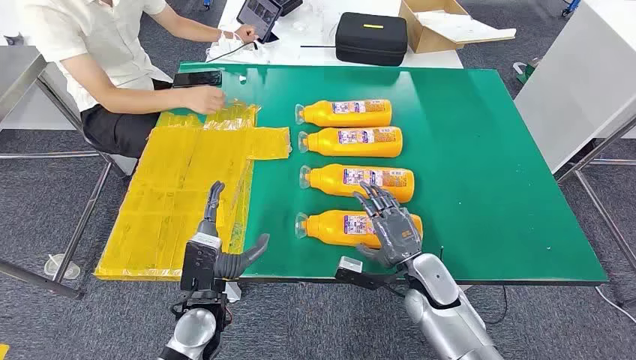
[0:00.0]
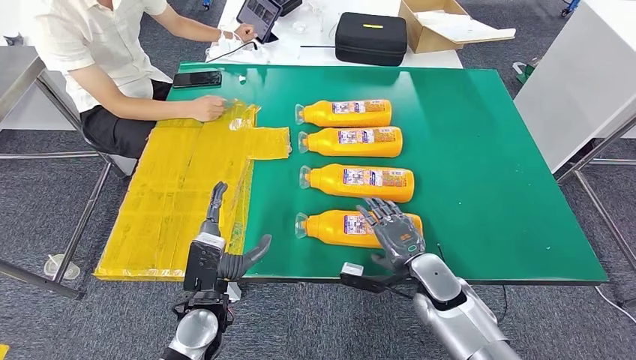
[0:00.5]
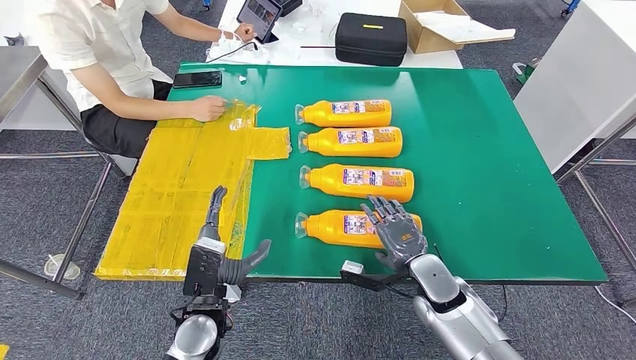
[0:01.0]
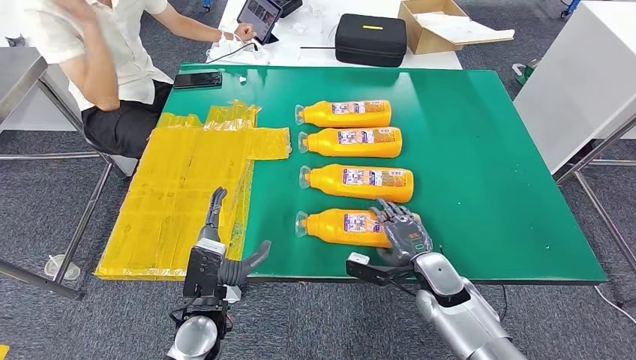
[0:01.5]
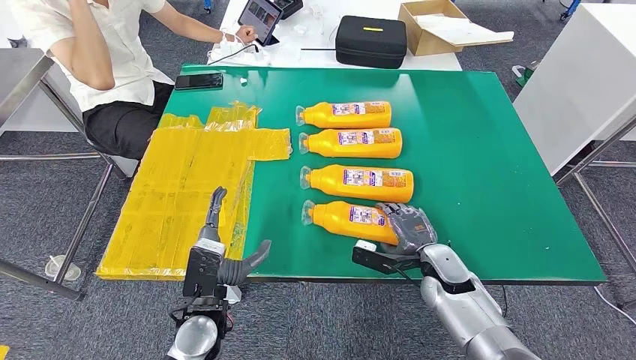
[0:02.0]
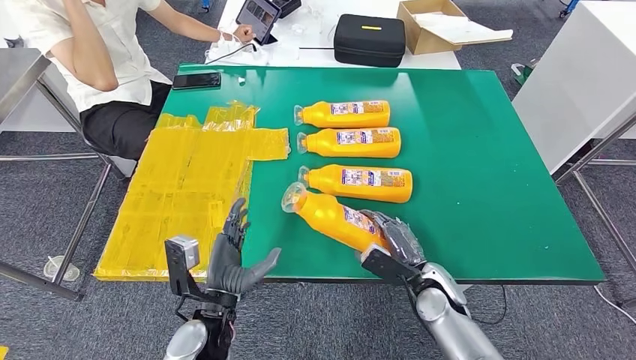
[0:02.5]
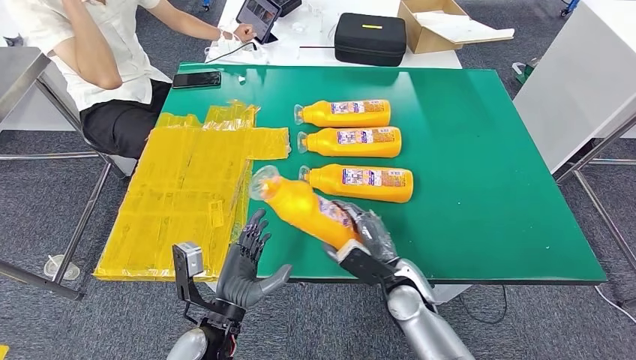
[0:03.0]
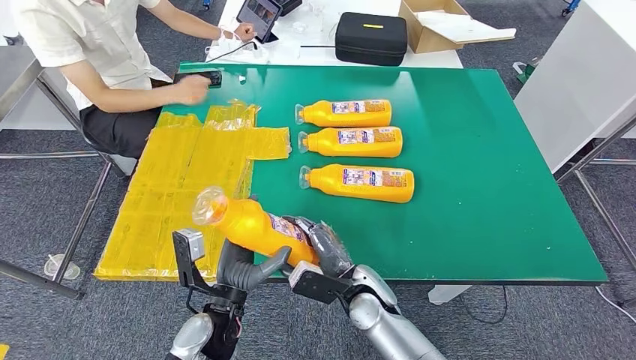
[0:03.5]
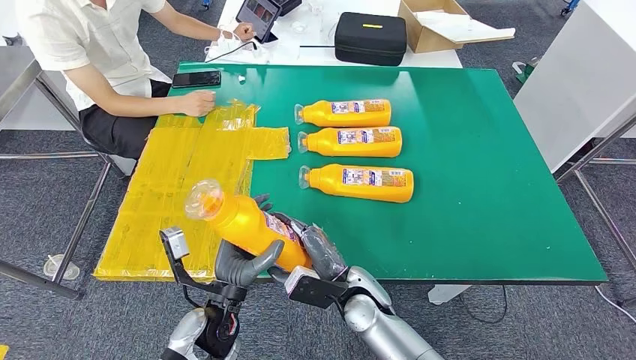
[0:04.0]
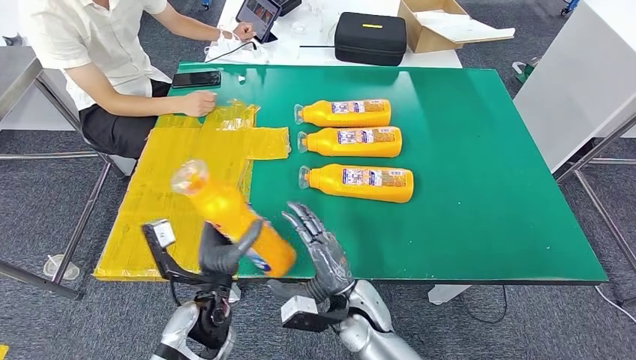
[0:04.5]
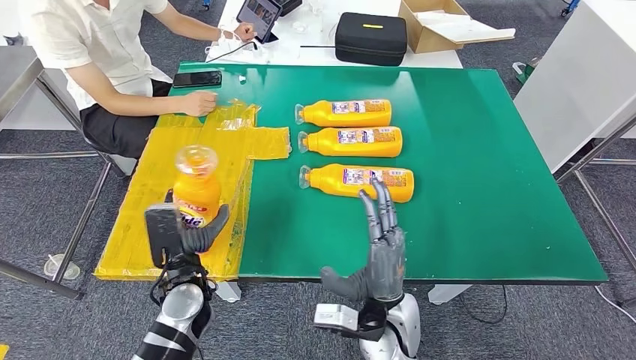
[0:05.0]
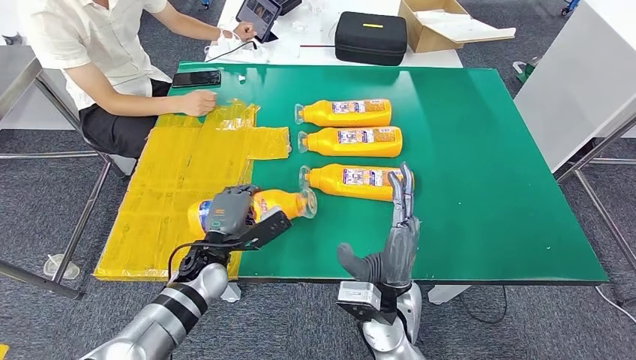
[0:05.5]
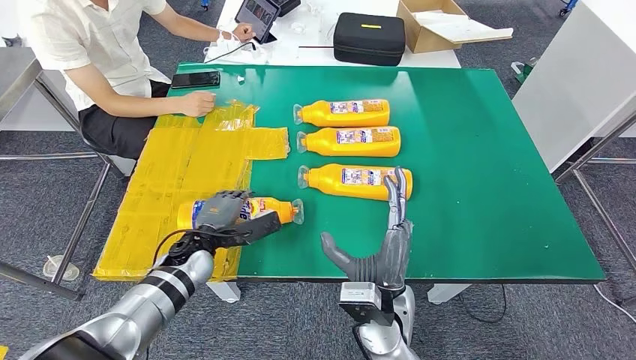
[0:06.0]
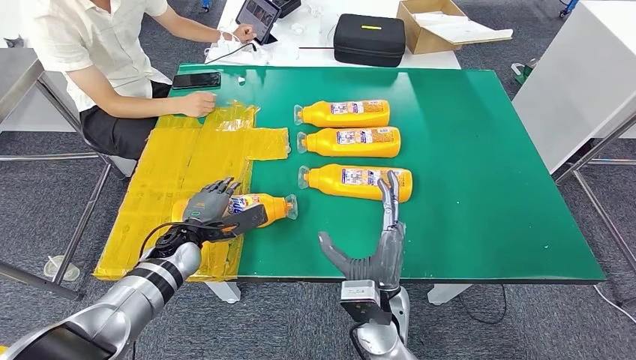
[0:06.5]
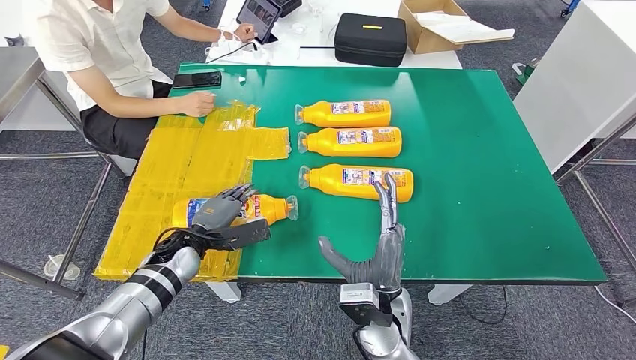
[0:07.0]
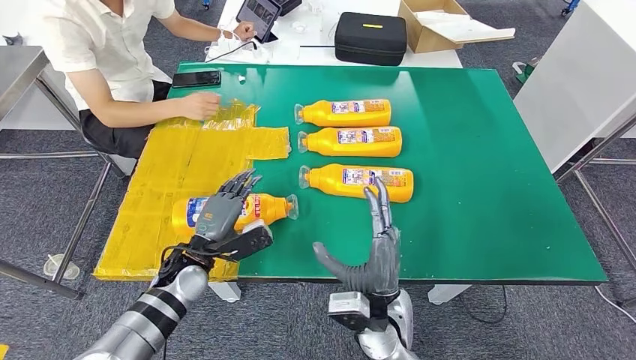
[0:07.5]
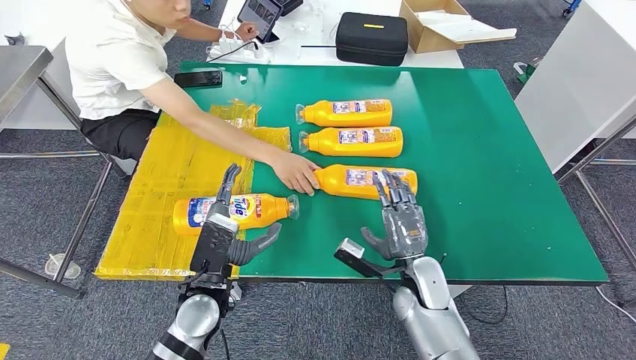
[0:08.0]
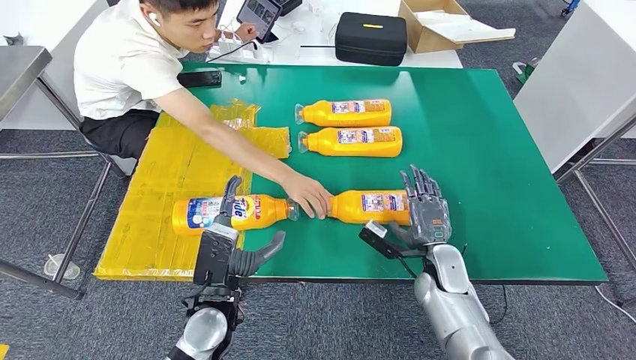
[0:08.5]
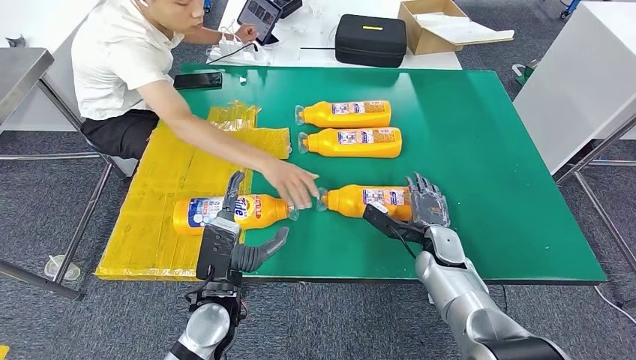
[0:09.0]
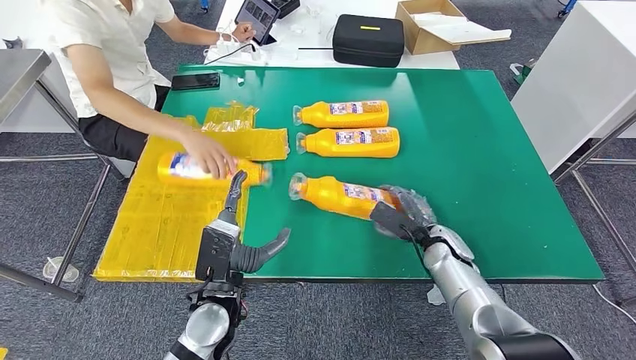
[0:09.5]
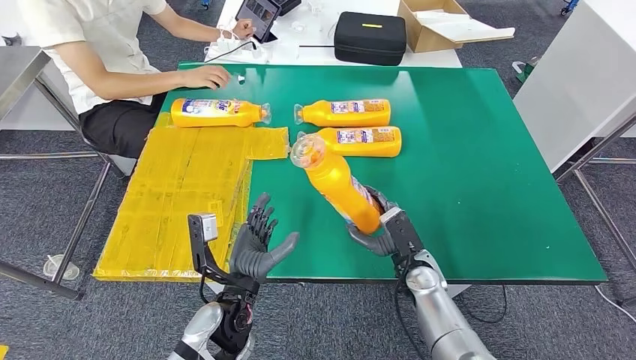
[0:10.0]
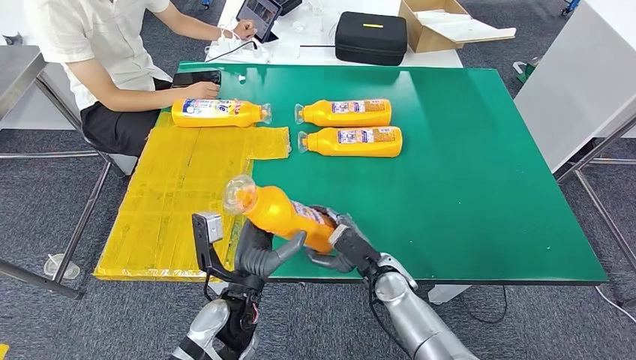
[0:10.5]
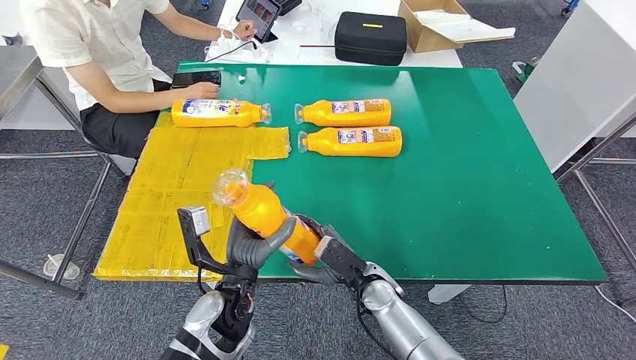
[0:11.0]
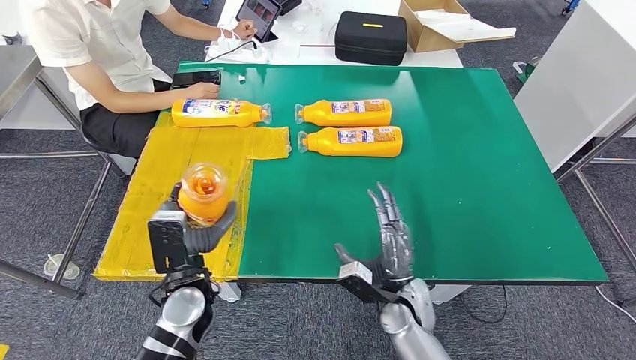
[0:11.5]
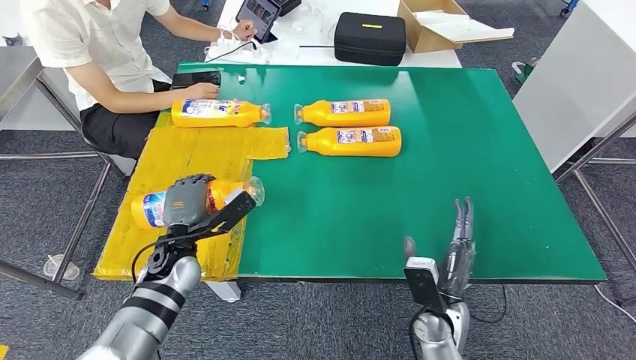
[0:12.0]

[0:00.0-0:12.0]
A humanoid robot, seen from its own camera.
Step, 0:00.0 to 0:03.5: Take the fast-moving consumer goods bottle from the table.
Step, 0:04.0 to 0:07.5: Flip the fast-moving consumer goods bottle to the front side.
Step, 0:08.0 to 0:10.5: Pick up the fast-moving consumer goods bottle from the table.
0:04.0 to 0:06.0: The left hand goes approximately 15 cm forward and to the left; the right hand heads upward, covering roughly 5 cm.
0:10.0 to 0:12.0: The right hand heads backward, covering approximately 10 cm, and moves approximately 10 cm to the left and comes back. The left hand heads to the left and forward, covering approximately 15 cm.

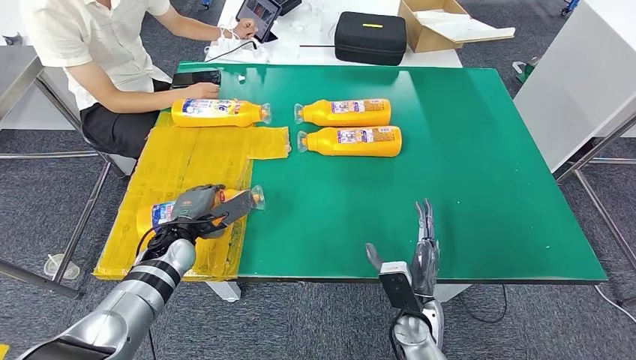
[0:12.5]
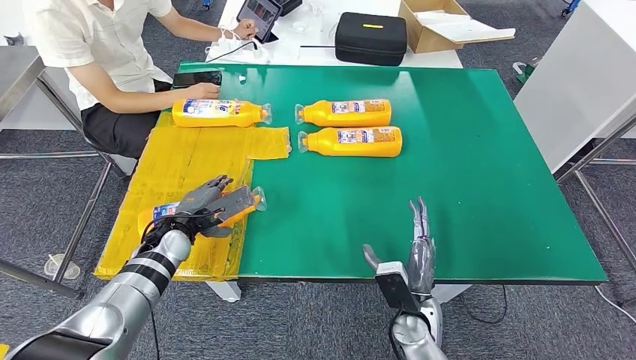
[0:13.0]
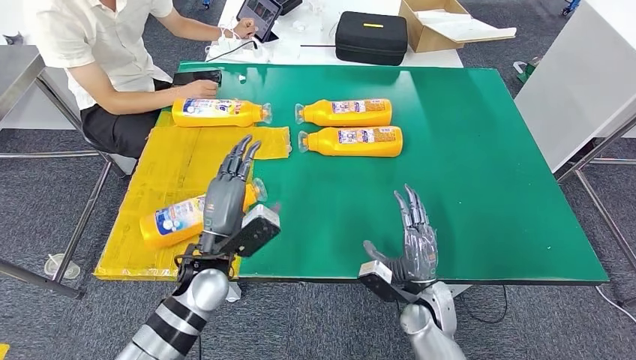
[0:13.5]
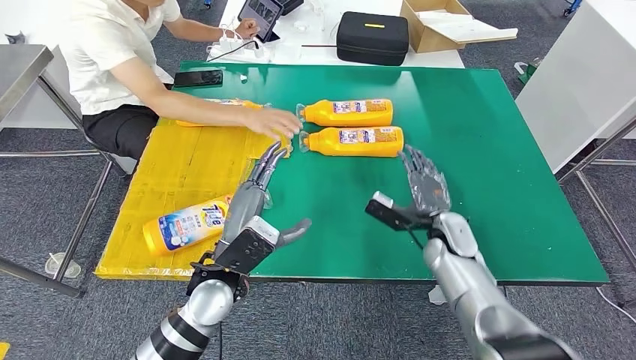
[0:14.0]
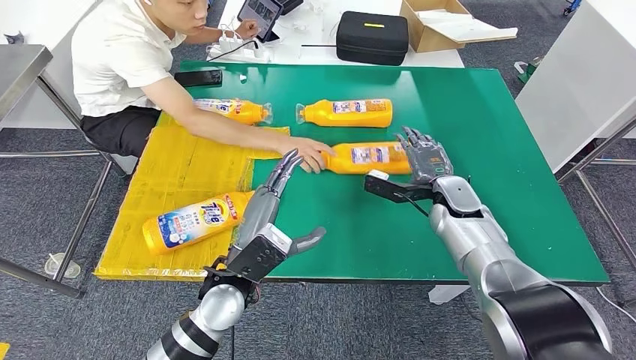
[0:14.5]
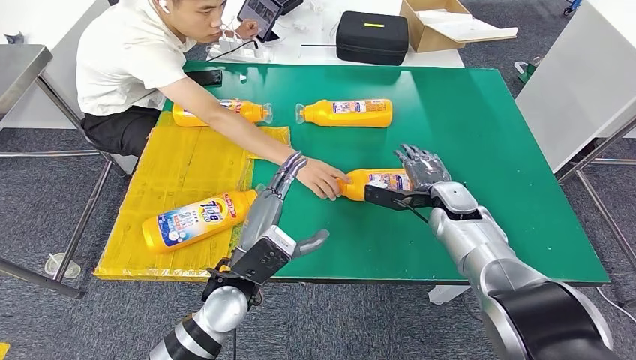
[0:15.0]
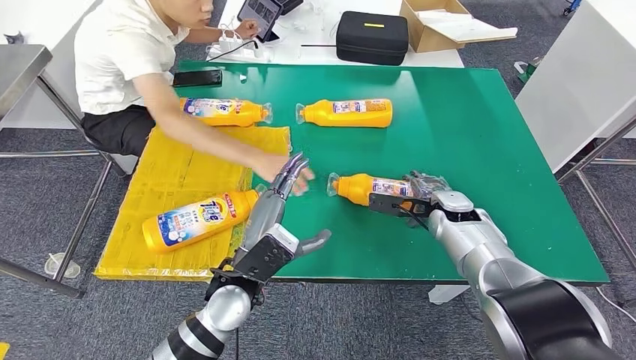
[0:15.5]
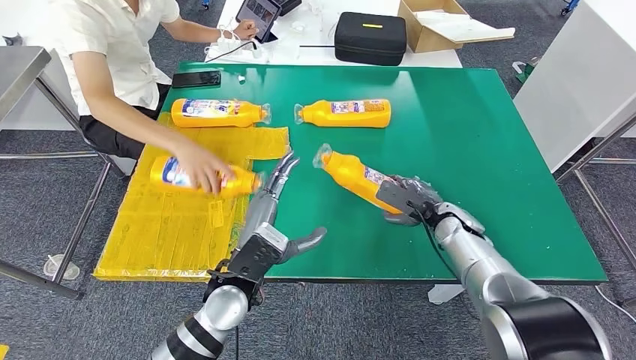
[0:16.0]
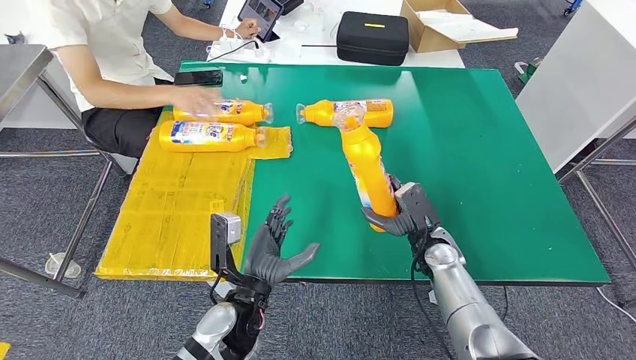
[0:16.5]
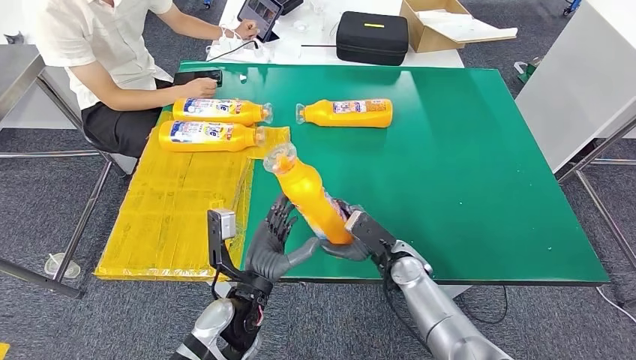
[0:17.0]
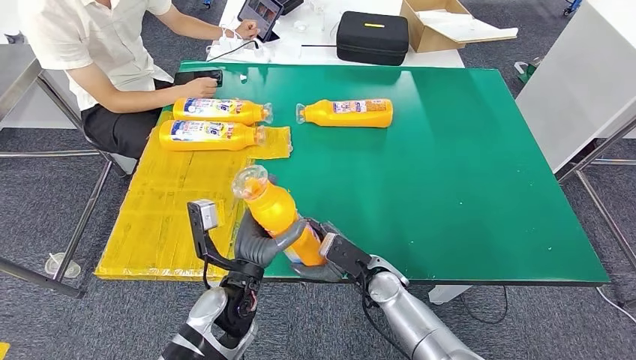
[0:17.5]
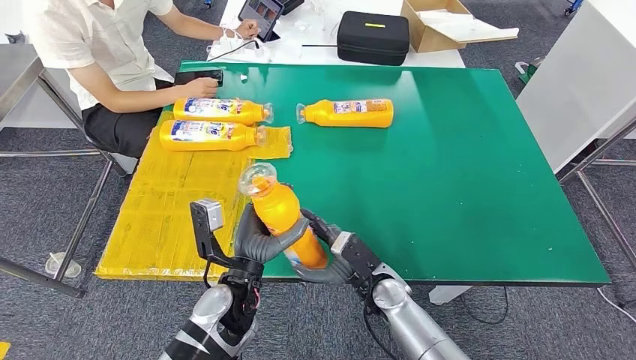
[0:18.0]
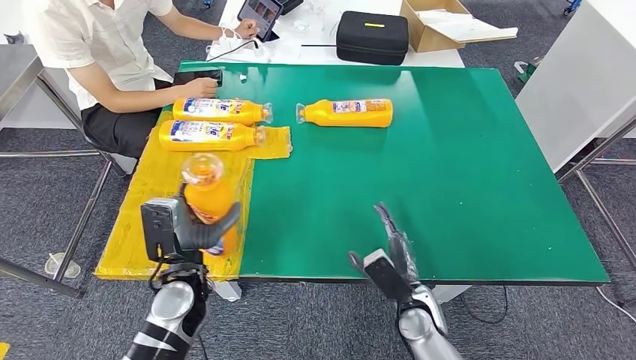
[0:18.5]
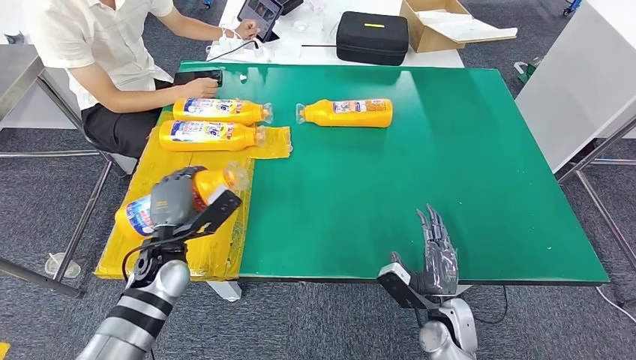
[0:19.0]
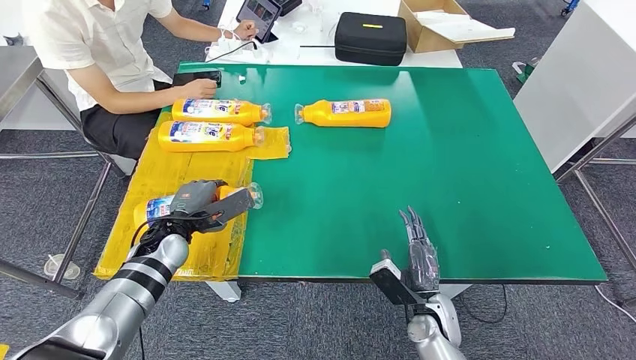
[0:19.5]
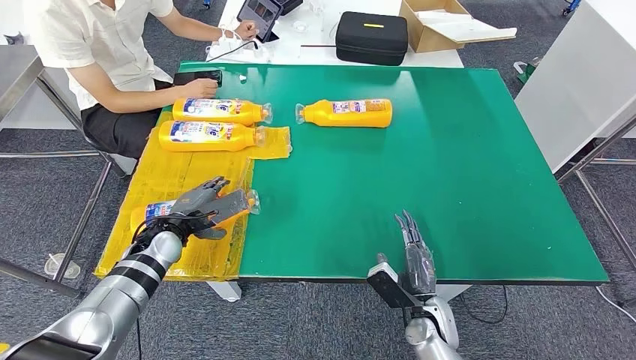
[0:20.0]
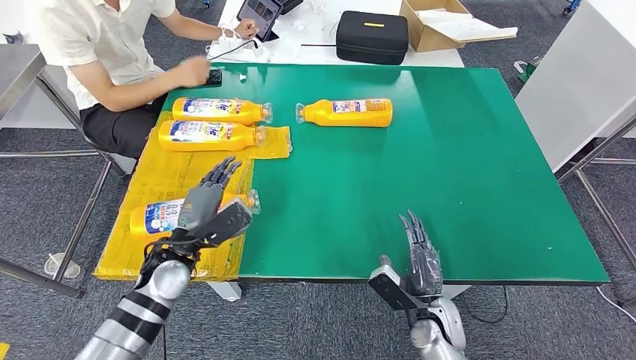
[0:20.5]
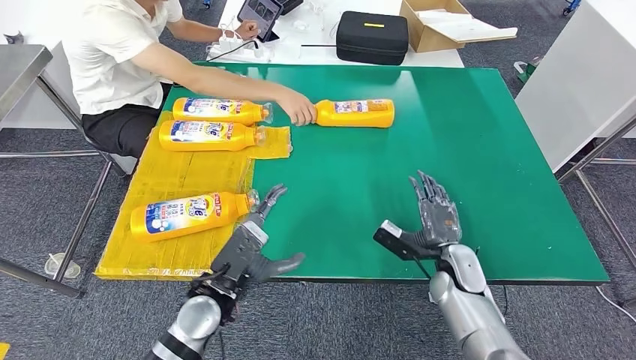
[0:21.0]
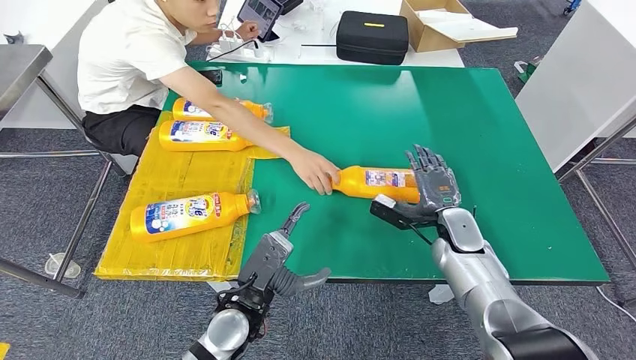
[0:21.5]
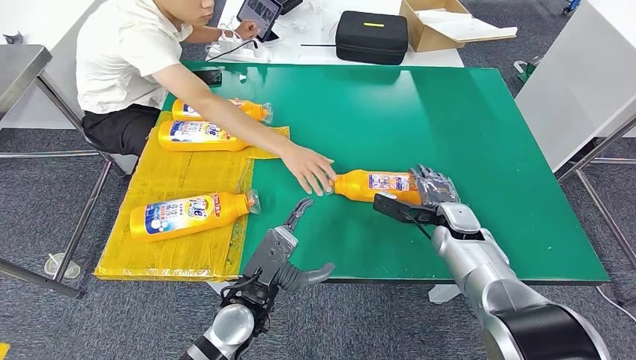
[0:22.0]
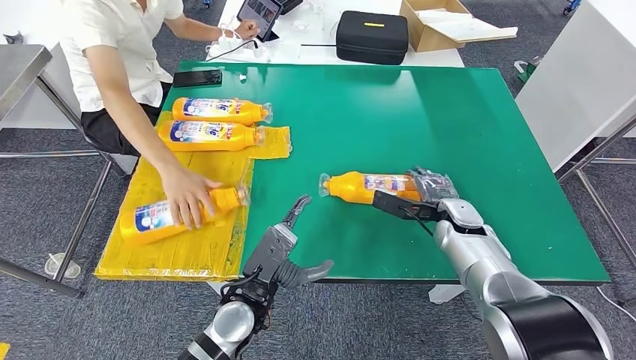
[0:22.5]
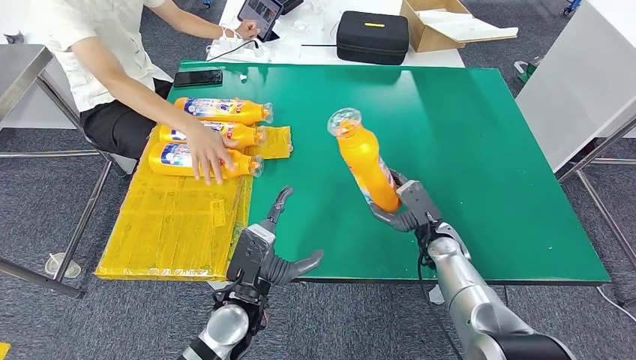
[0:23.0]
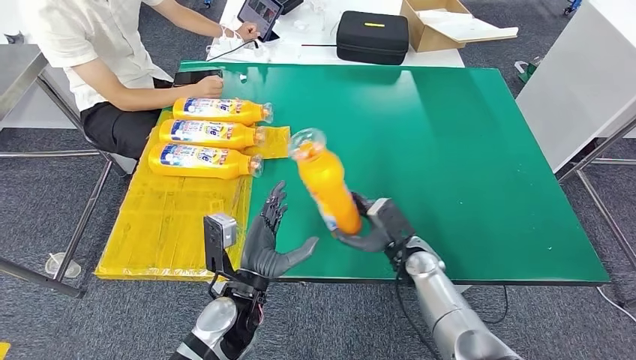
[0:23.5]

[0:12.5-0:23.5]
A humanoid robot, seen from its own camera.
Step, 0:14.5 to 0:17.0: Pick up the fast-moving consumer goods bottle from the table.
Step, 0:17.5 to 0:20.5: Flip the fast-moving consumer goods bottle to the front side.
0:18.0 to 0:20.0: The left hand shifts approximately 20 cm to the left and forward. Meanwhile the right hand travels to the right and downward by about 10 cm.
